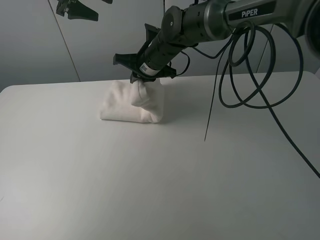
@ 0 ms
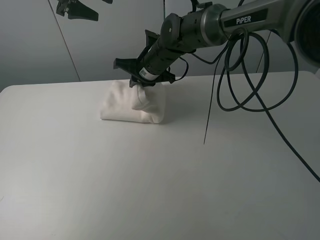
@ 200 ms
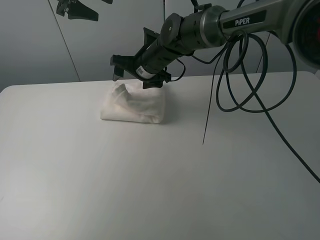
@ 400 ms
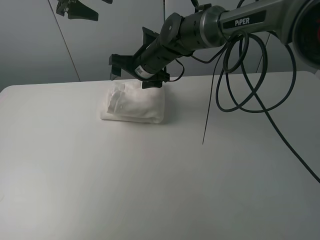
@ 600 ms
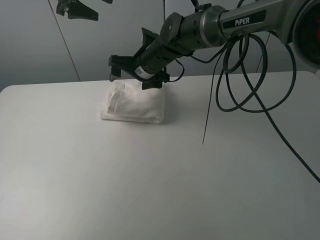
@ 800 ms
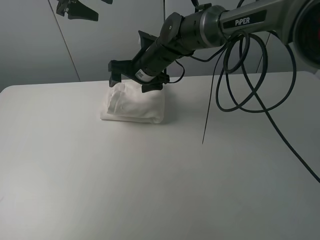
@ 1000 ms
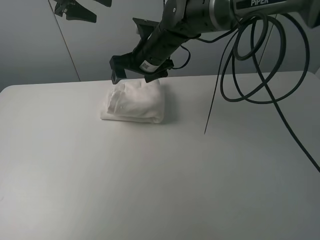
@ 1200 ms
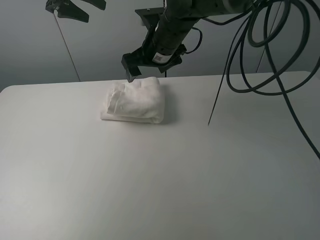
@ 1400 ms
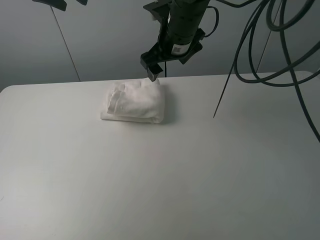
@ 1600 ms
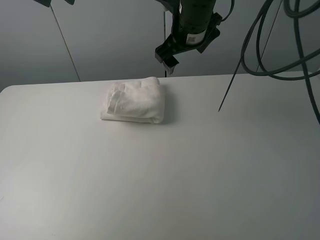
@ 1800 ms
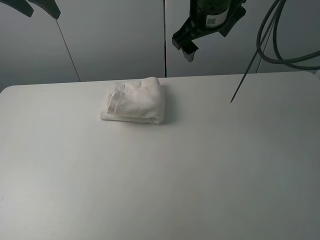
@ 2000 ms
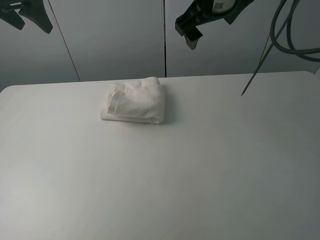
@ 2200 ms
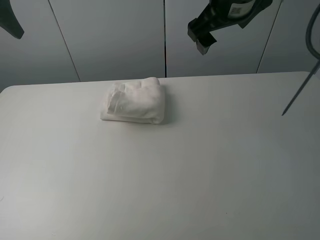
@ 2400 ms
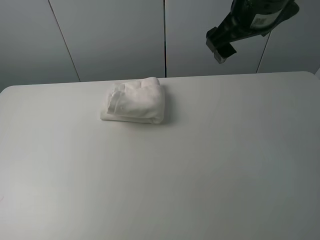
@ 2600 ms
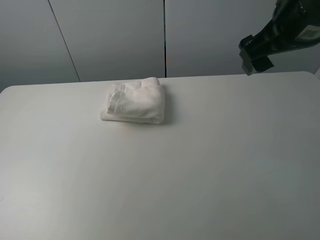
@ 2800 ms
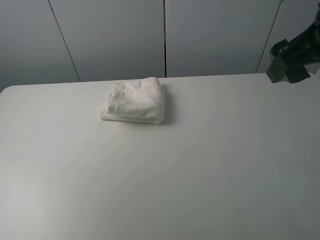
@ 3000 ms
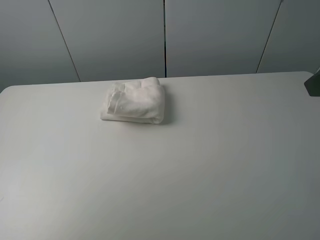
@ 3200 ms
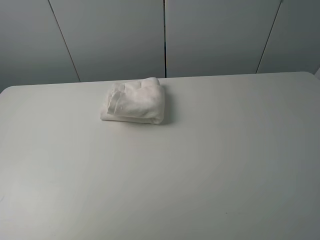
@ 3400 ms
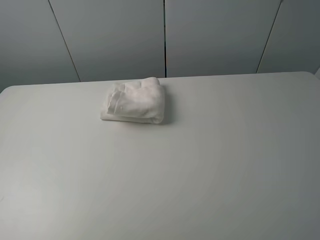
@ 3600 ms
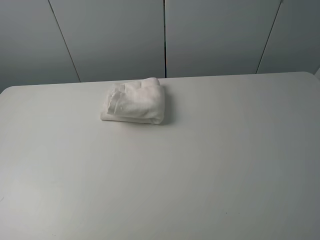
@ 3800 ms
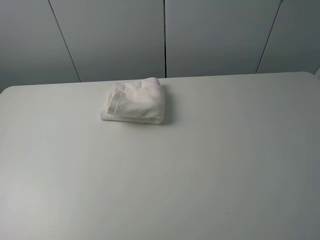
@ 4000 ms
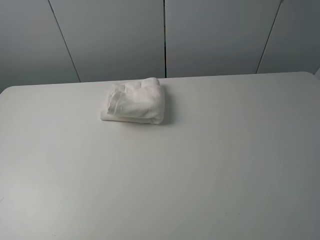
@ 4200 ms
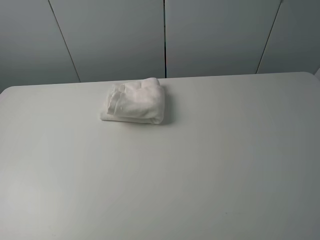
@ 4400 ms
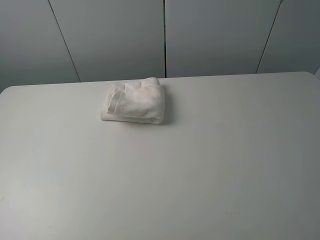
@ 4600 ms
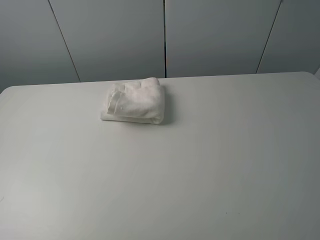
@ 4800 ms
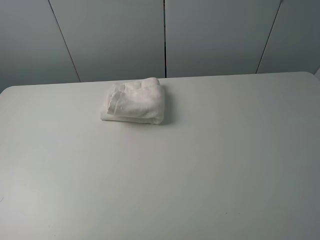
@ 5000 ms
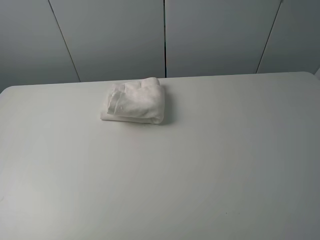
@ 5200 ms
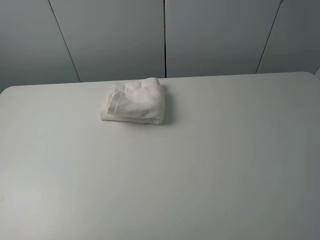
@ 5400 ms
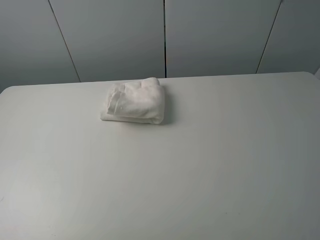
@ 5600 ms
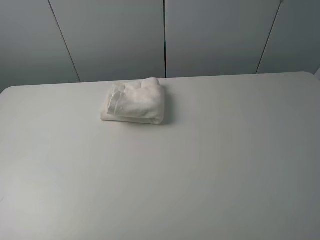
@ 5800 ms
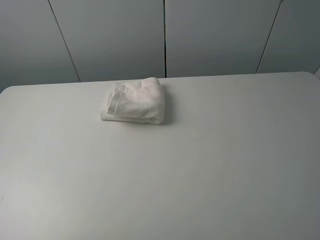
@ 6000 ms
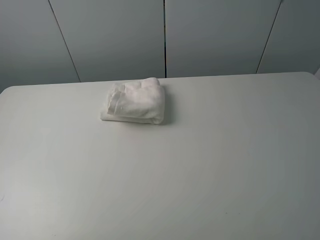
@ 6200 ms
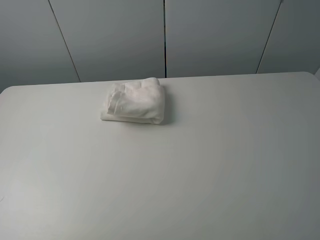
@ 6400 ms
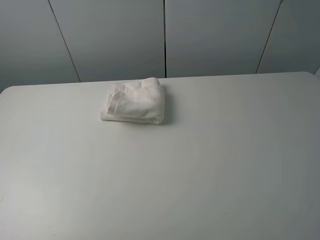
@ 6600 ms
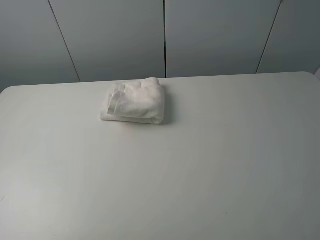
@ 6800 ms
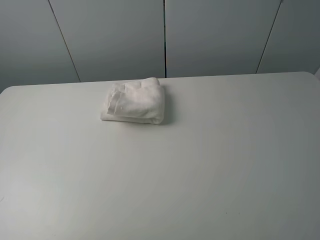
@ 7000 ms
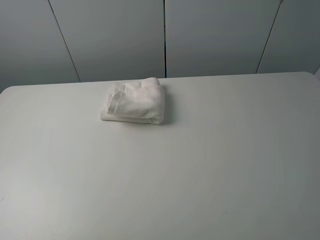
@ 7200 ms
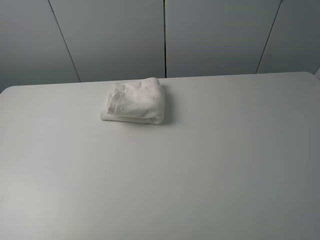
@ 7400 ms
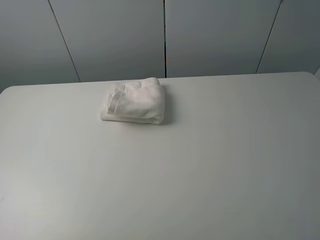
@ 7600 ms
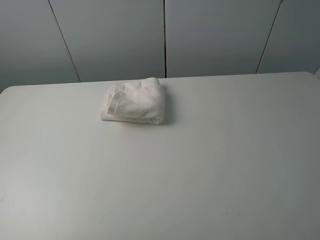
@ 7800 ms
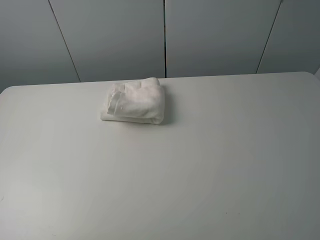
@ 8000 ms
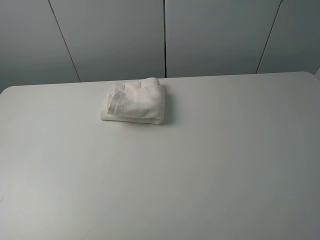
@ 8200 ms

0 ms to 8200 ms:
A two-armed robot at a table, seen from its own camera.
Task of the whole recording: fold the towels on the table.
0 ms to 1600 ms: The left gripper changes place by about 5 cm, while the right gripper heads upward and to the right, covering roughly 10 cm, and opens up.
1600 ms to 3200 ms: The left gripper is displaced backward and to the left by some 35 cm. Meanwhile the right gripper goes approximately 30 cm backward and to the right.
6600 ms to 8200 ms: Both grippers stay put.
